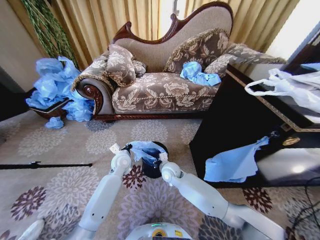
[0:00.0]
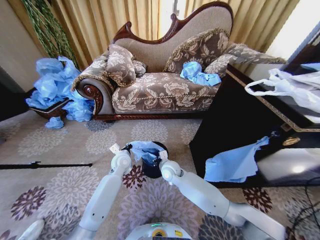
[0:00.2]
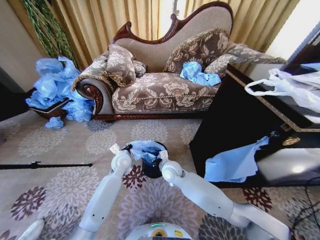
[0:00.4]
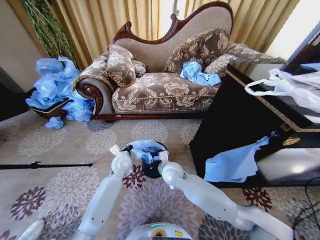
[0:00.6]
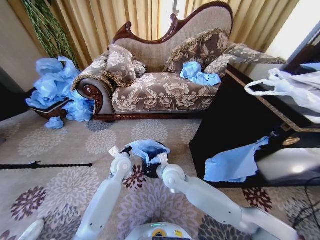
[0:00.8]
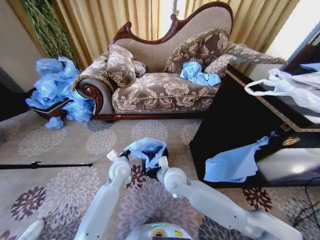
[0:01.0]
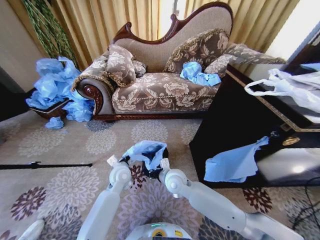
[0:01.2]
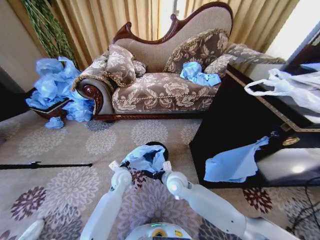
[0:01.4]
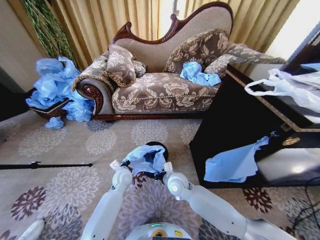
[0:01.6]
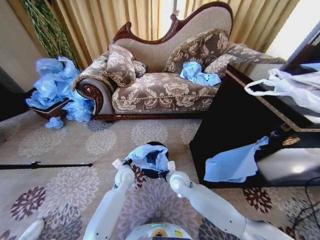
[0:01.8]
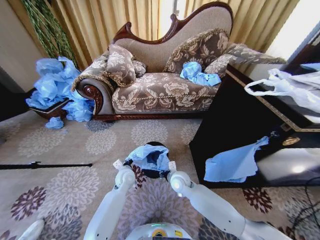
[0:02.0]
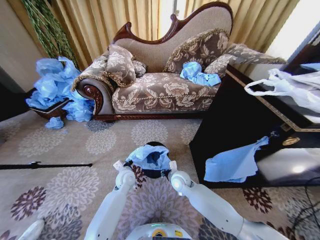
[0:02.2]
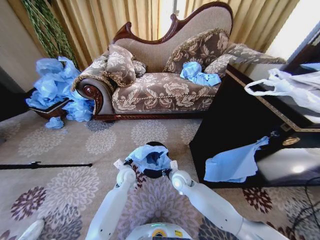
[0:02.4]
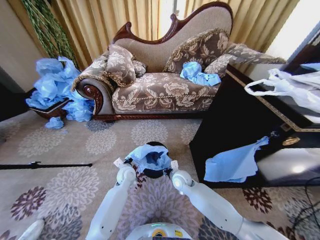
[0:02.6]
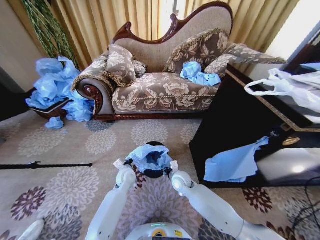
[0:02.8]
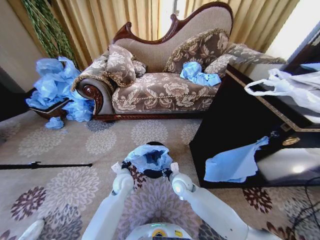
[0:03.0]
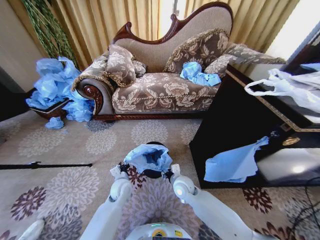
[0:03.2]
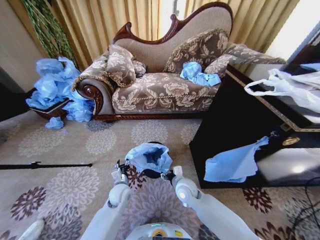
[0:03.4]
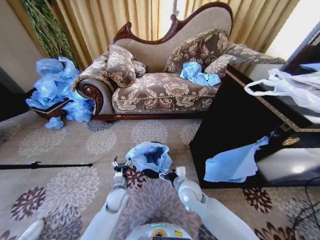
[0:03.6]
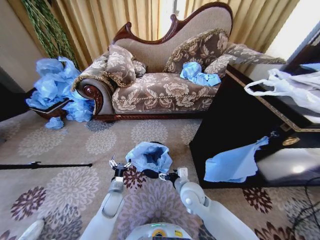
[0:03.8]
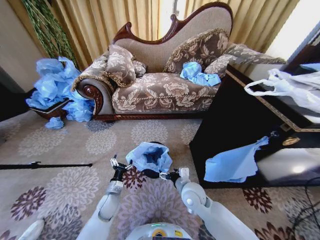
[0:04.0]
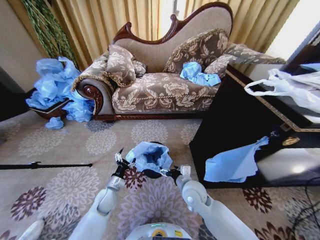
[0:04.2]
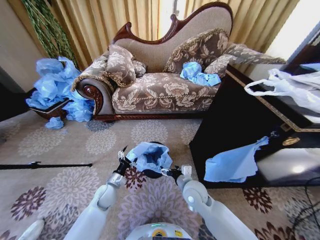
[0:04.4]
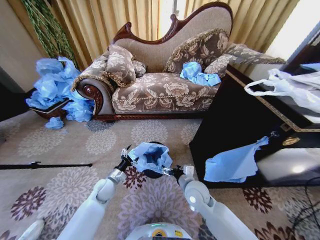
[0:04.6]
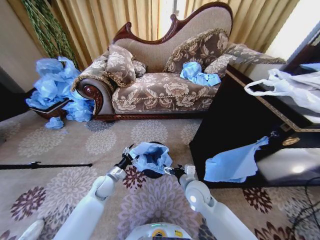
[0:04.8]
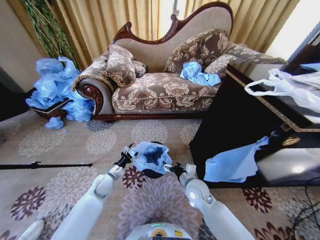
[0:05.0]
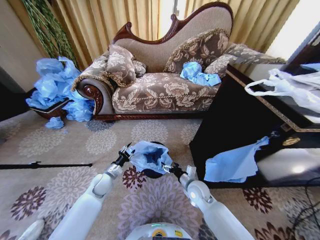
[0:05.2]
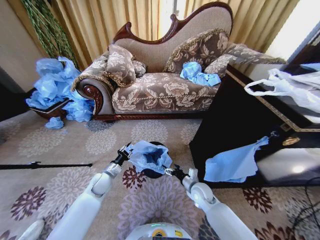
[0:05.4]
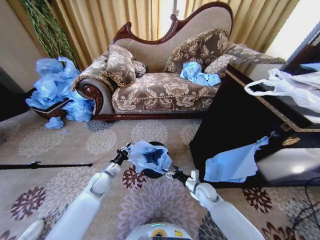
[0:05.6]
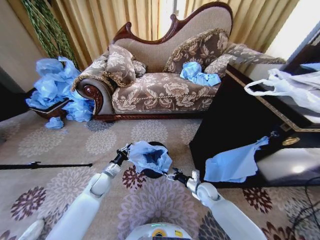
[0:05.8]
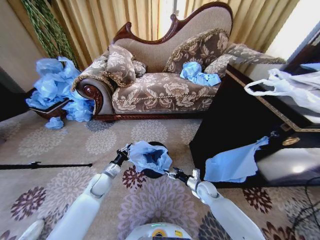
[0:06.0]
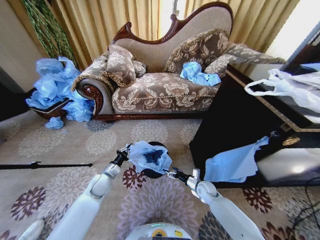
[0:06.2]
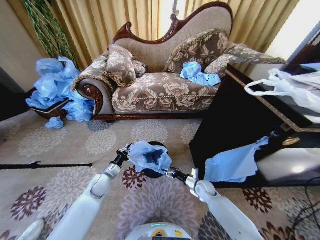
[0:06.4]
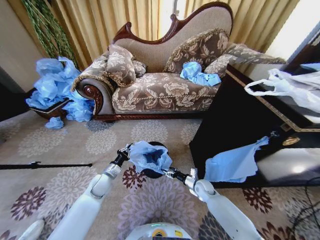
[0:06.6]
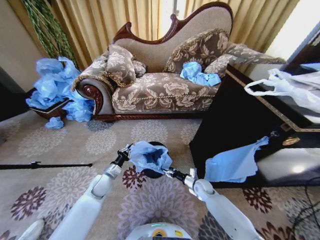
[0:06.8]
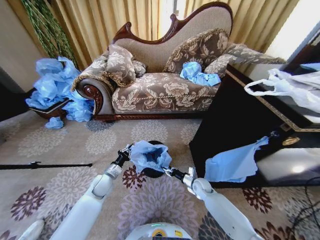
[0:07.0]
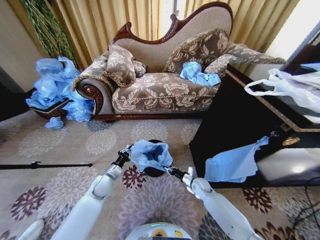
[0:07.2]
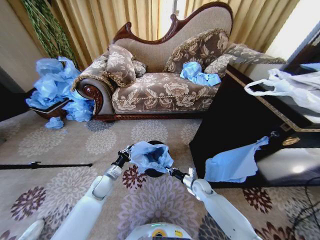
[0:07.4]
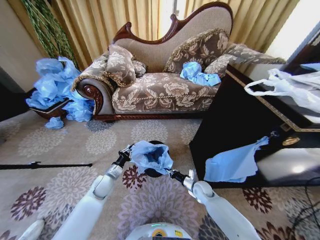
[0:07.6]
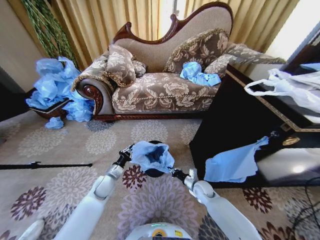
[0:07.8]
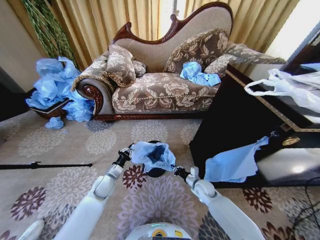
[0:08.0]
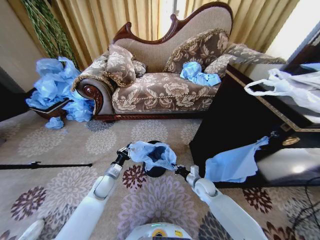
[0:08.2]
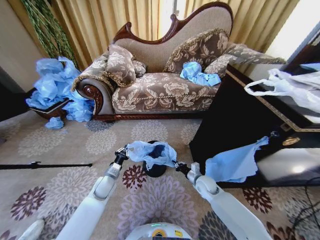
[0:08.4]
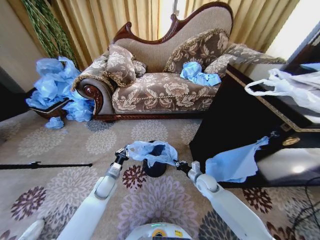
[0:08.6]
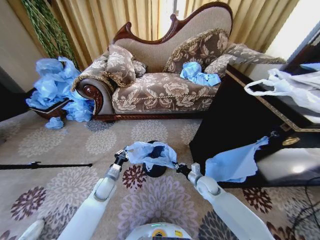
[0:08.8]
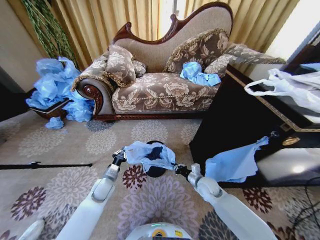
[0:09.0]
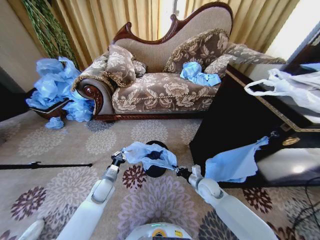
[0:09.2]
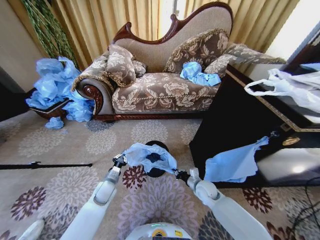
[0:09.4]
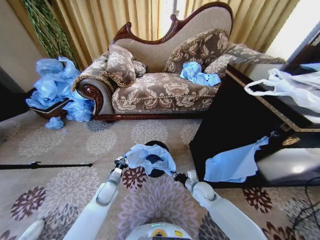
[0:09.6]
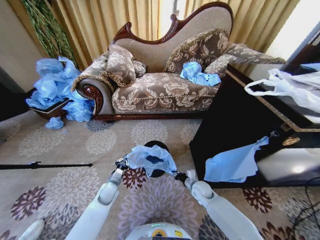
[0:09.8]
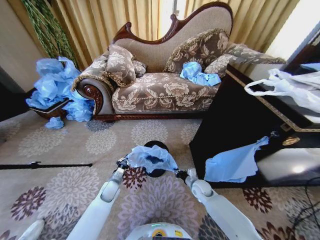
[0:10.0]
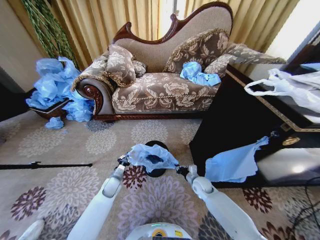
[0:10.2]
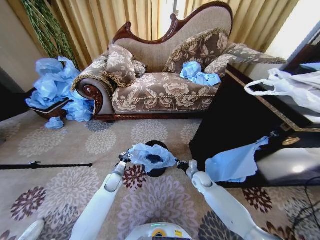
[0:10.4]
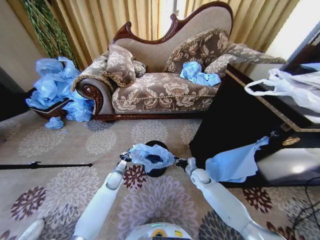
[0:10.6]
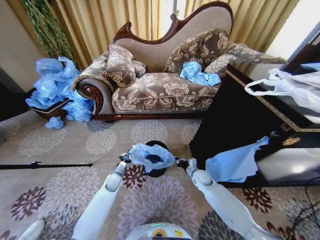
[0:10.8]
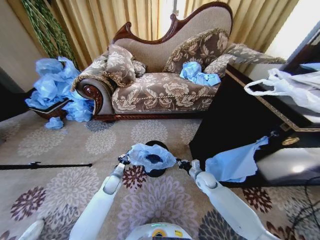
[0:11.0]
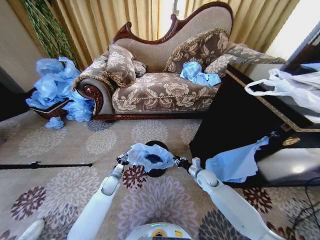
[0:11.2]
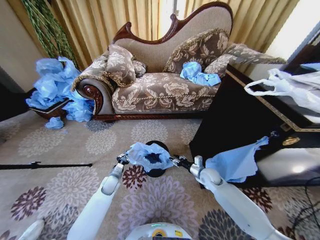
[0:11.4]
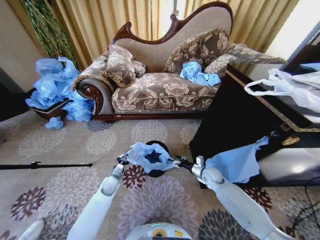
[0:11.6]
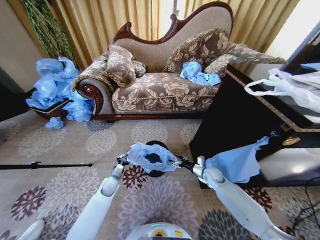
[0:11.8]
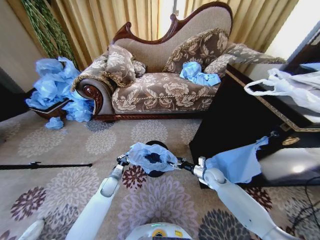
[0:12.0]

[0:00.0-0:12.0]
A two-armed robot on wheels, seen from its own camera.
Task of the whole recording: Place a garbage bag over the trash bin.
0:00.0 to 0:01.6: The right gripper heads backward, covering about 5 cm; the left gripper moves downward, about 5 cm.
0:03.0 to 0:04.4: The right gripper is displaced backward by some 5 cm, and opens up. The left gripper shifts approximately 10 cm to the left, and opens up.
0:04.4 to 0:06.0: The left gripper shifts by about 5 cm, and closes, while the right gripper moves downward, to the right and forward, about 20 cm.
0:06.0 to 0:07.6: The right gripper closes up.
0:07.6 to 0:09.0: The right gripper moves upward, roughly 10 cm.
0:09.0 to 0:10.4: The two grippers go approximately 10 cm downward and forward.
0:10.4 to 0:12.0: The right gripper travels to the right by about 5 cm, and opens.

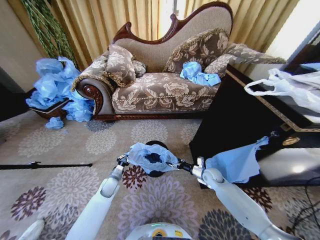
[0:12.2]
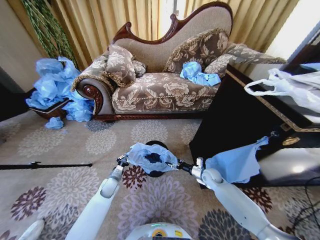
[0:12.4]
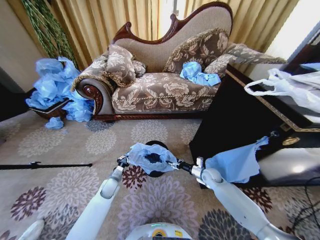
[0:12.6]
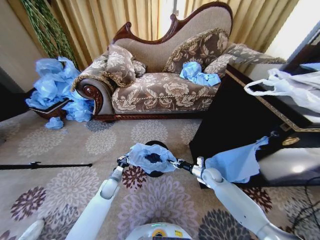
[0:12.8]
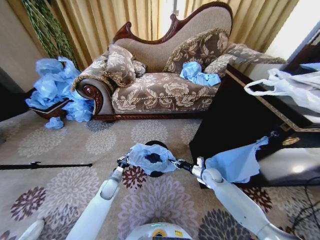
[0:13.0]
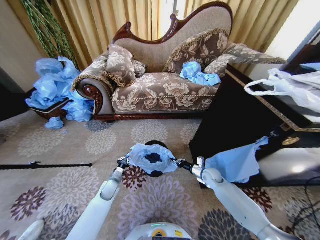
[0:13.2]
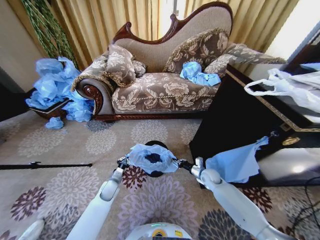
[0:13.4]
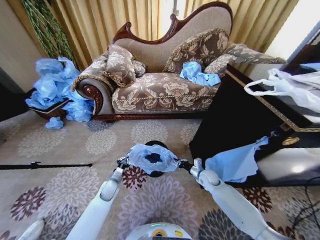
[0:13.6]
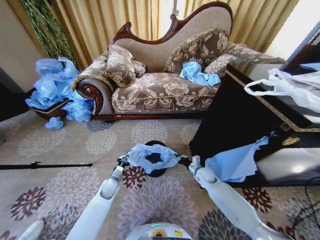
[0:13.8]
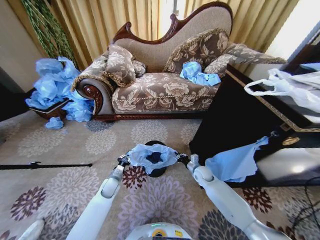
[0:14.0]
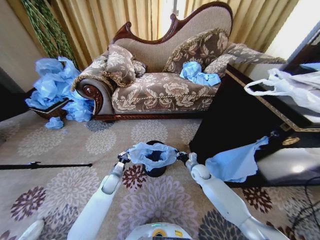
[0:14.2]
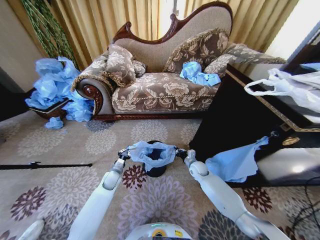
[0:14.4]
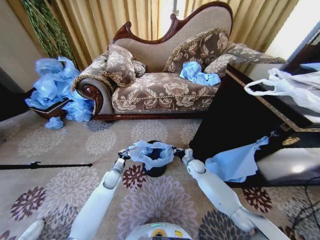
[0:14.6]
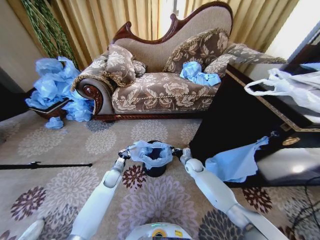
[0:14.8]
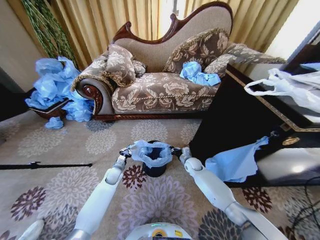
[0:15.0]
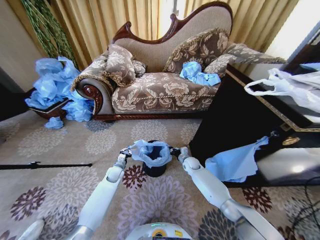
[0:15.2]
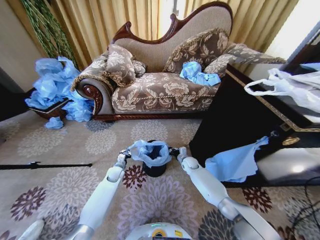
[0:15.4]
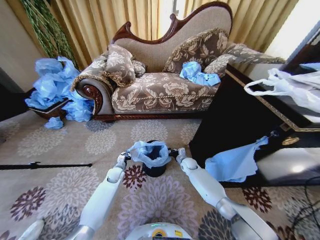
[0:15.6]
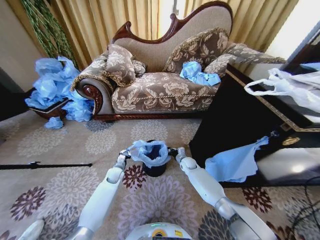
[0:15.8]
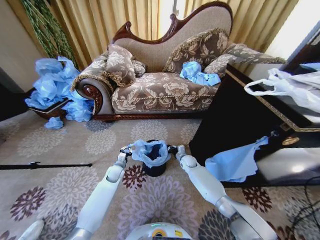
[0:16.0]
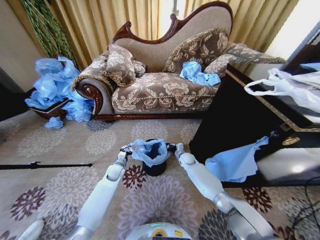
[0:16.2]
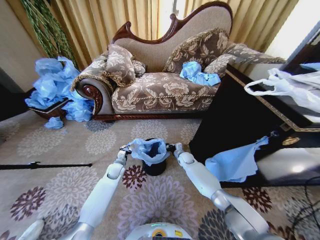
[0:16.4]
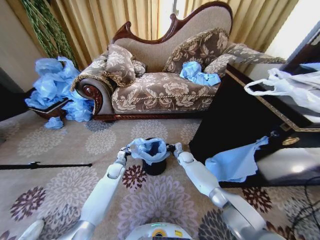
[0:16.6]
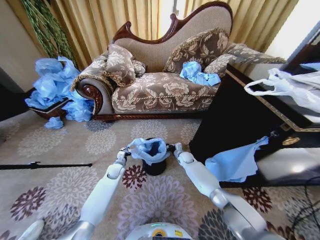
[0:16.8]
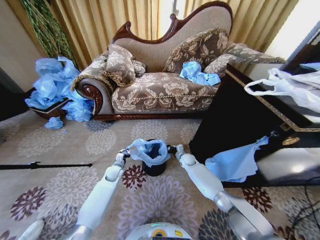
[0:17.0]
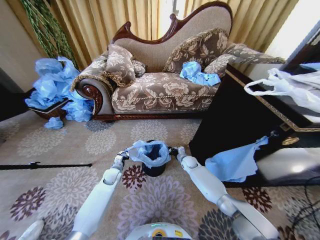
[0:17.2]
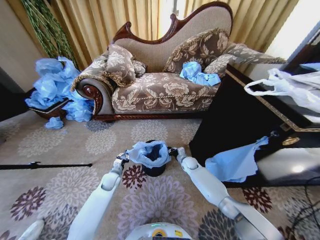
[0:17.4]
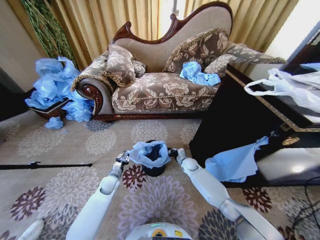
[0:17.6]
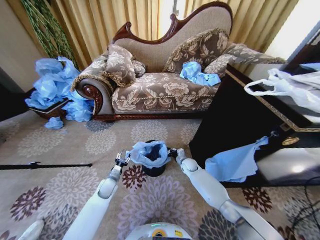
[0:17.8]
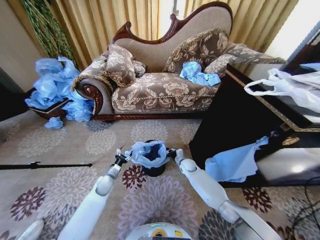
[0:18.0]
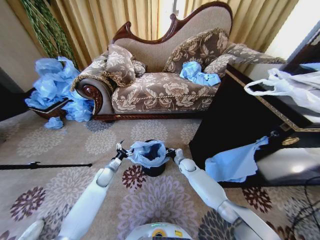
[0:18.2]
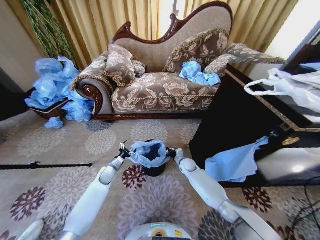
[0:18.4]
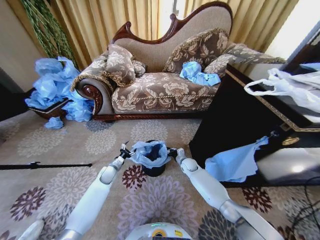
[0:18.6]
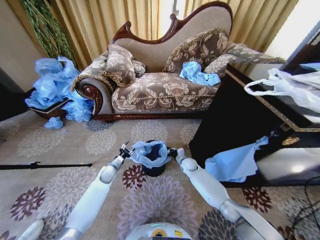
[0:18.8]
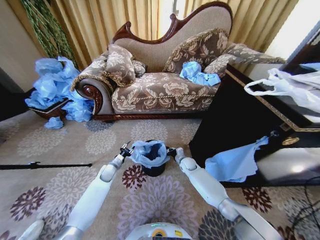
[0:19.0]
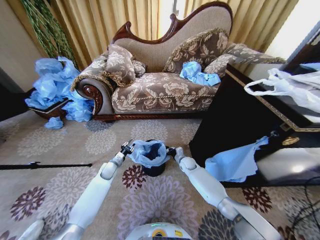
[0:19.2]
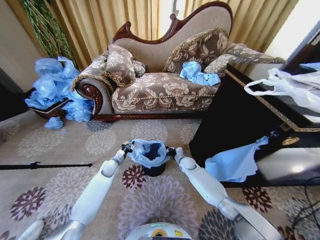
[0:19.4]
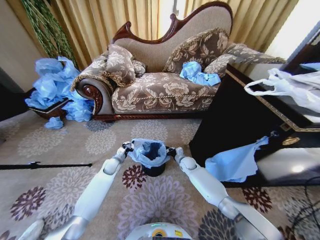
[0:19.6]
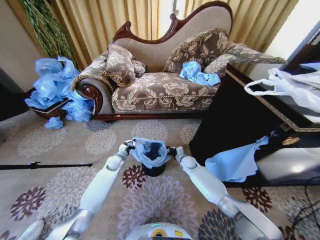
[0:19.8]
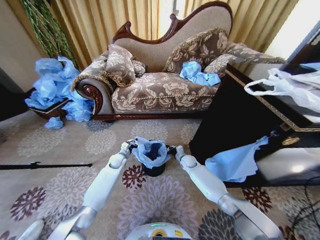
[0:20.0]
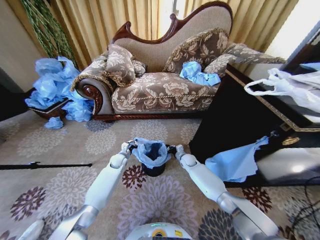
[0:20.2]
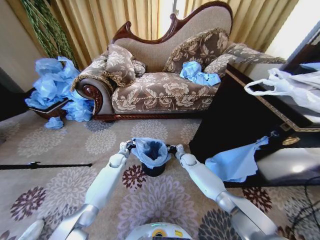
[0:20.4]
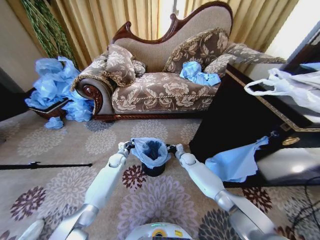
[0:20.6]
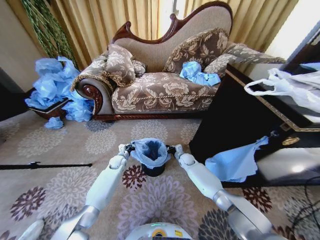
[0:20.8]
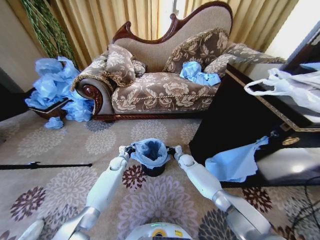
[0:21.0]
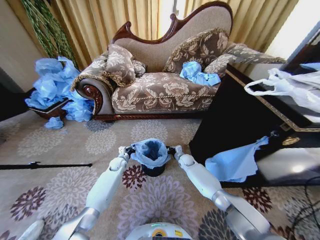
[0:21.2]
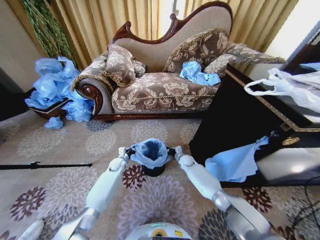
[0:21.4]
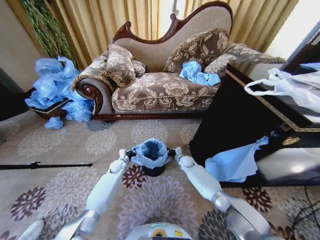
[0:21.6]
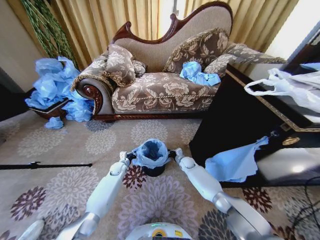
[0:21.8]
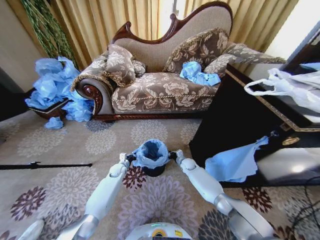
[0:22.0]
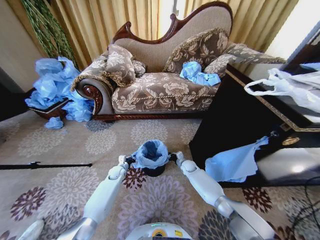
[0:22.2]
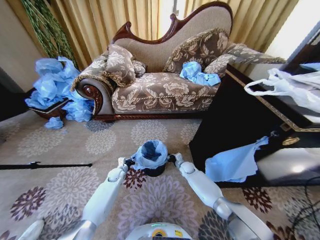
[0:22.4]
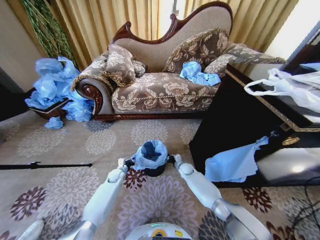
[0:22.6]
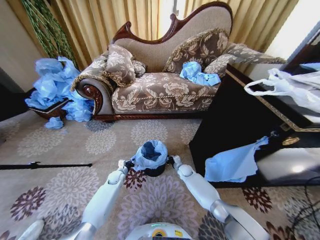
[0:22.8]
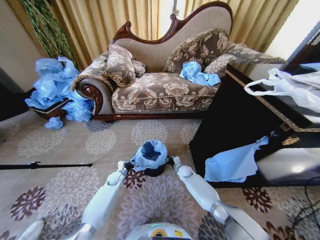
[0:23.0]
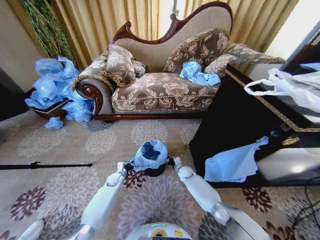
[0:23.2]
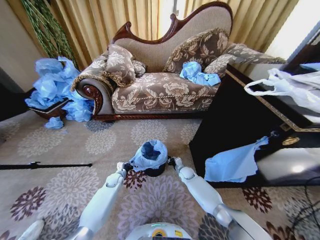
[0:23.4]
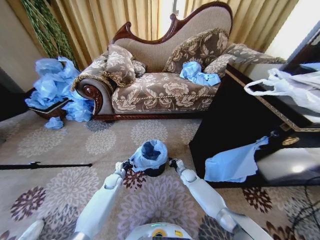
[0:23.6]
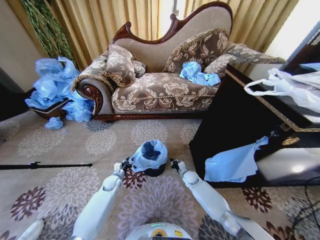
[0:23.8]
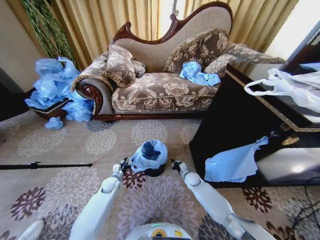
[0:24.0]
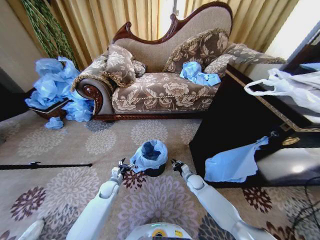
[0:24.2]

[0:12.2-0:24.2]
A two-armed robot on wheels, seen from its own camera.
Task of the whole recording: Place a garbage bag over the trash bin.
0:12.2 to 0:13.8: The right gripper closes.
0:13.8 to 0:15.2: The right gripper travels forward and to the left by some 10 cm; the left gripper goes some 10 cm forward.
0:15.2 to 0:16.6: The grippers stay close to where they were, moving slightly.
0:16.6 to 0:18.2: The grippers both shift backward by some 5 cm. The left gripper opens its fingers.
0:18.2 to 0:19.8: The left gripper goes some 10 cm forward, and closes up.
0:21.2 to 0:22.6: The left gripper goes roughly 5 cm downward, while the right gripper shifts by roughly 5 cm.
0:22.6 to 0:24.2: The two grippers go some 5 cm backward. The left gripper opens its fingers.
